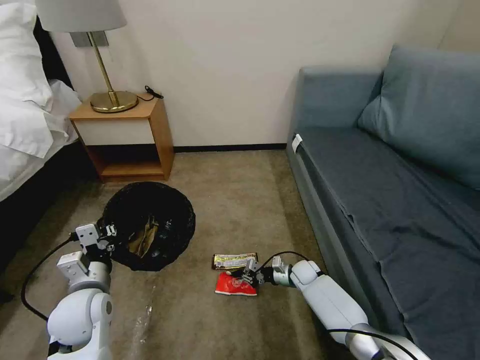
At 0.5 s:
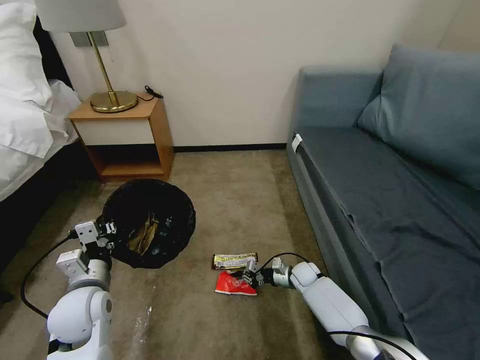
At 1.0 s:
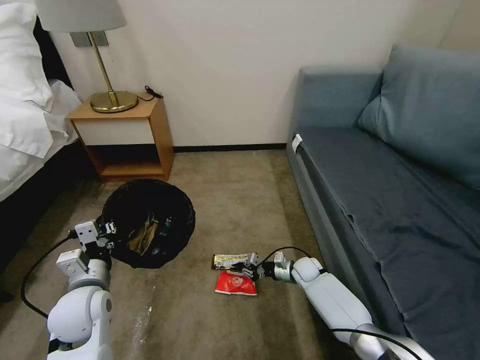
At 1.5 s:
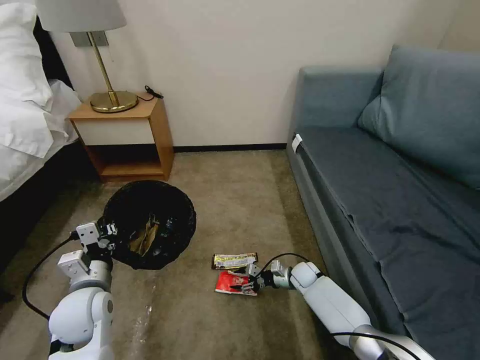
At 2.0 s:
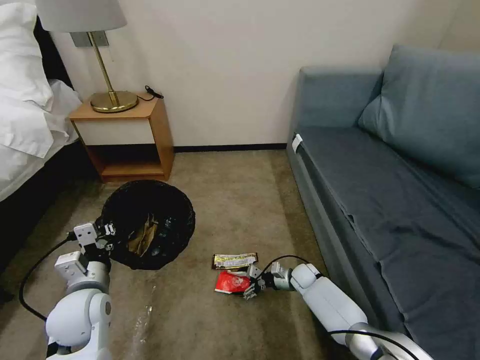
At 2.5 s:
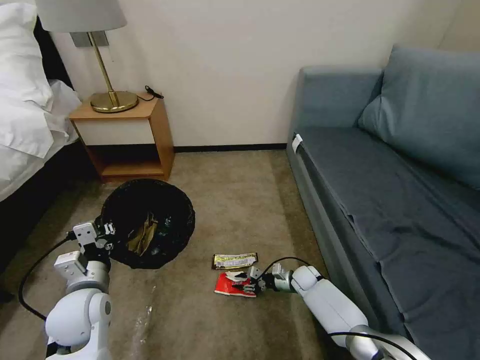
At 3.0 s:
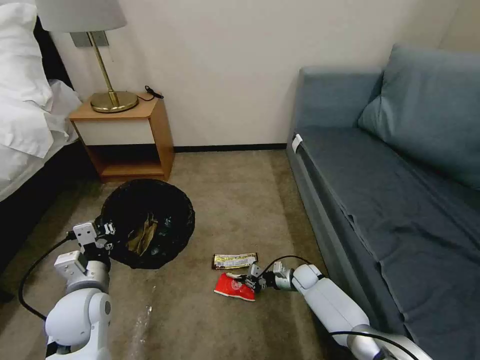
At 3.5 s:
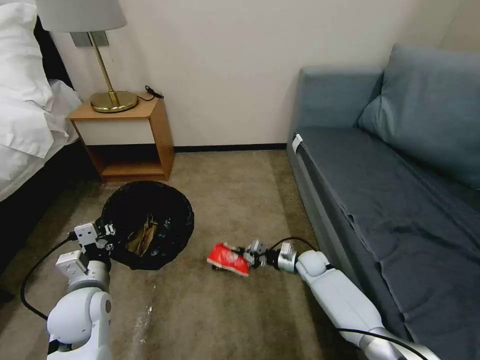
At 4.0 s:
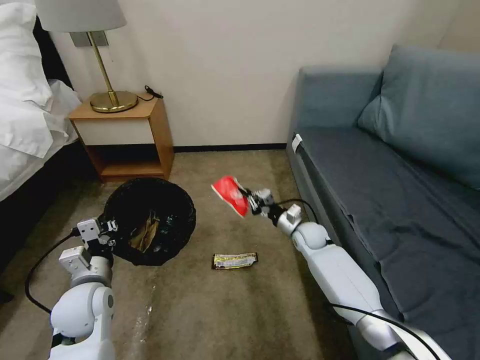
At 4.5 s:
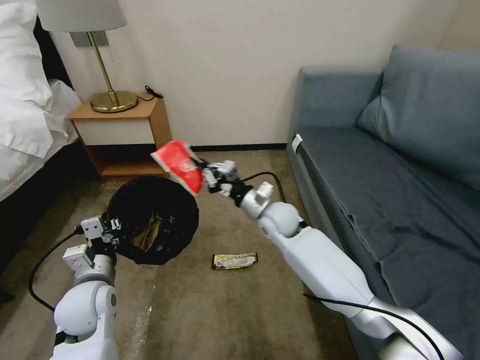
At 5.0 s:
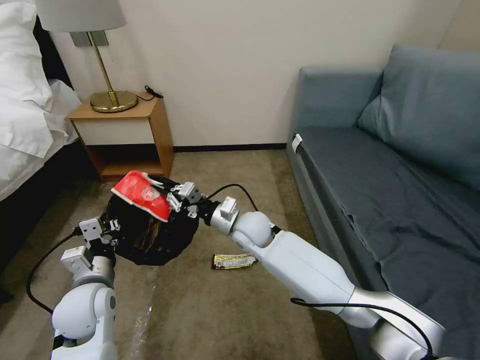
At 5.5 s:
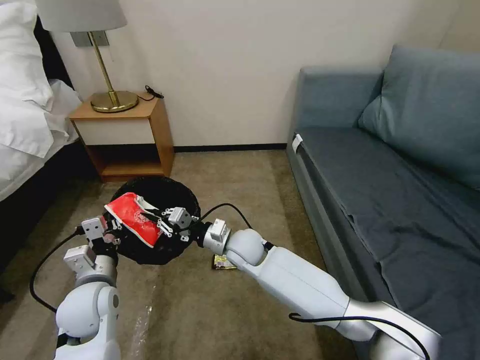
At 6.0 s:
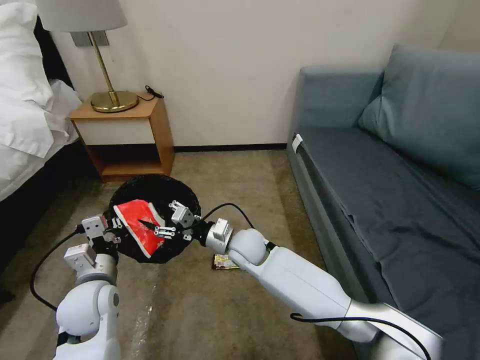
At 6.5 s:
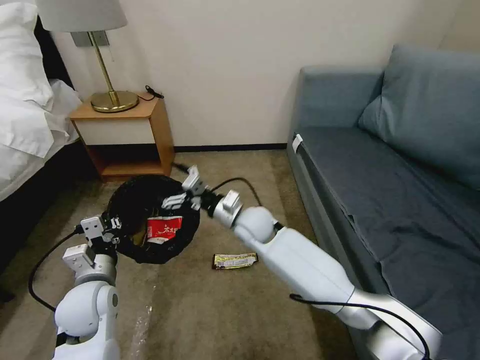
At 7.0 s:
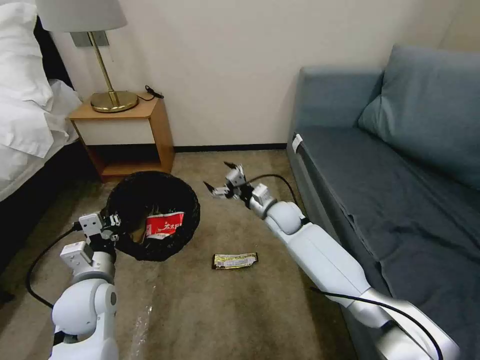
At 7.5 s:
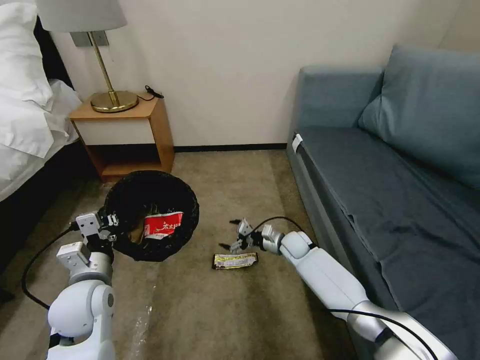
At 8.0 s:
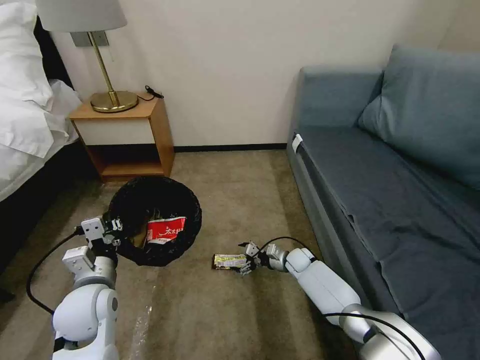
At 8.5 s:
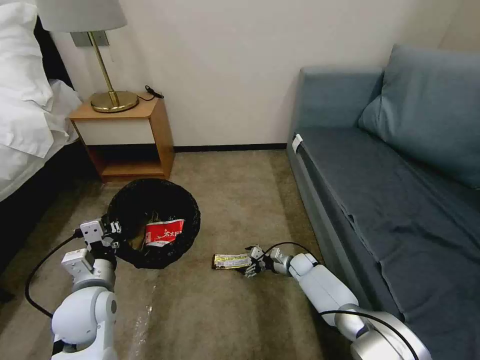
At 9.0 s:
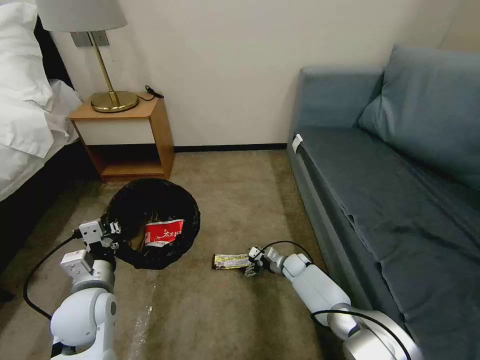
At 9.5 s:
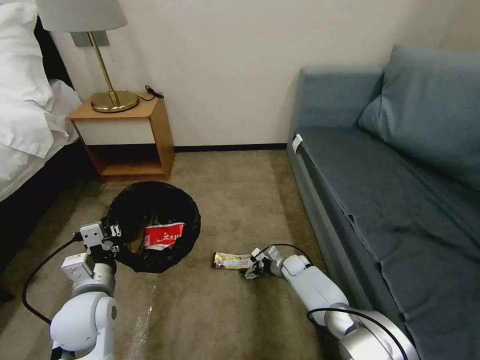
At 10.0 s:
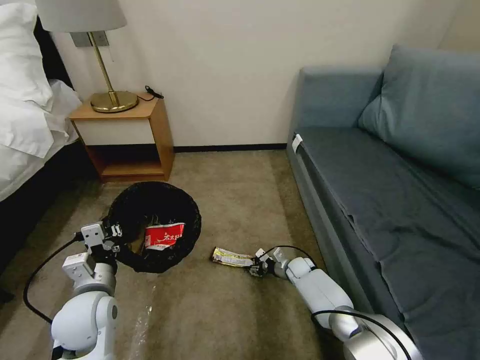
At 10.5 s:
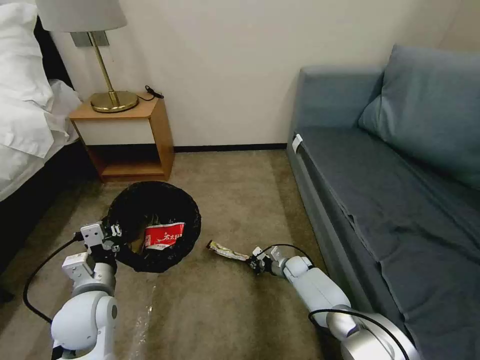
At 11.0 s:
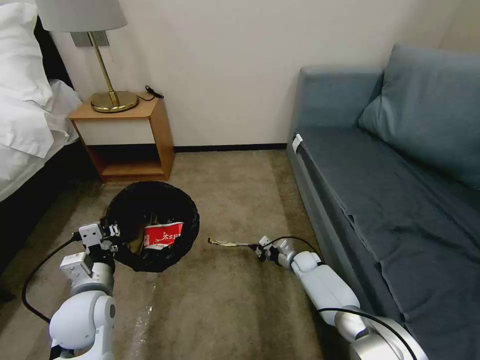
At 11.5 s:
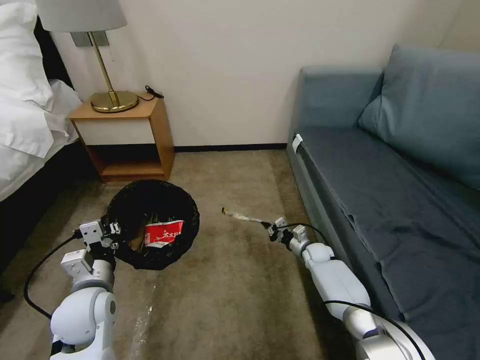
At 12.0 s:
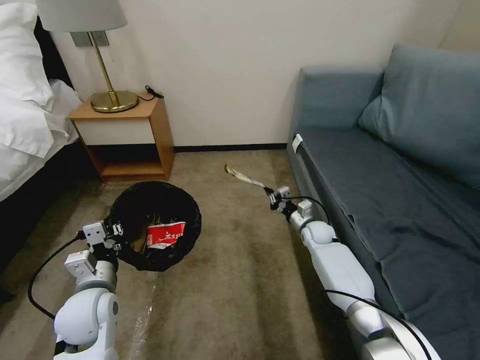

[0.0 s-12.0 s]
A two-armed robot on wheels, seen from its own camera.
Task of the whole recording: Pick up the trash bin, then pick up the garbage on the floor and place it into the trash bin.
0.0 to 2.0 s: The right gripper opens up.
2.0 to 4.0 s: The right gripper moves upward, some 15 cm, and closes.
4.0 to 6.0 s: The right gripper shifts approximately 20 cm to the left and backward, and opens up.
6.0 to 8.0 s: The right gripper heads to the right and downward, covering some 25 cm, and opens.
8.0 to 10.0 s: The right gripper closes.
10.0 to 12.0 s: The right gripper goes approximately 15 cm upward, forward and to the right, and closes its fingers.

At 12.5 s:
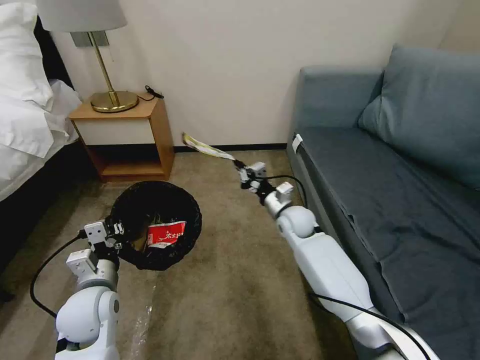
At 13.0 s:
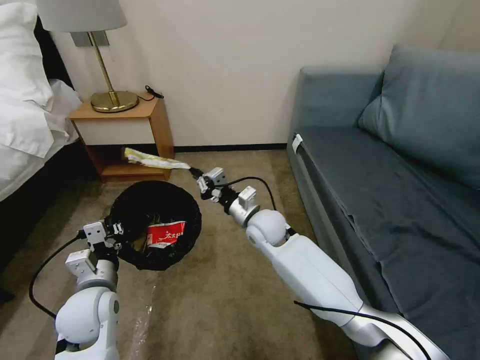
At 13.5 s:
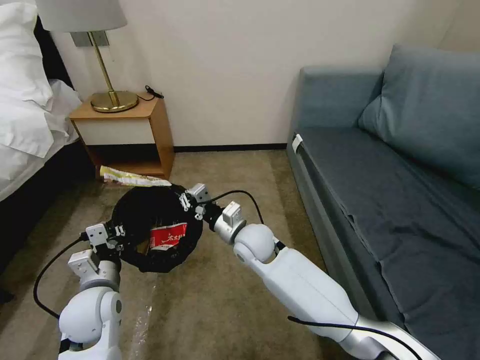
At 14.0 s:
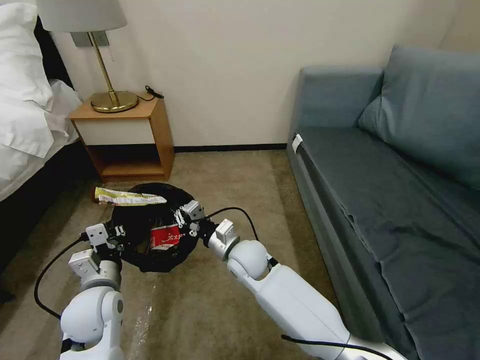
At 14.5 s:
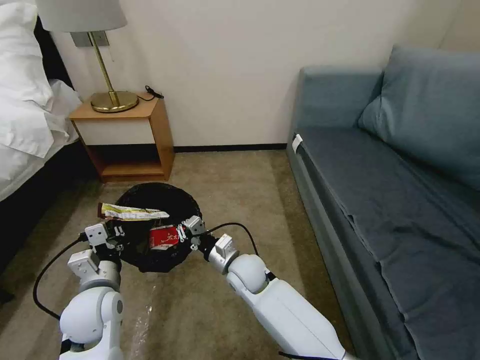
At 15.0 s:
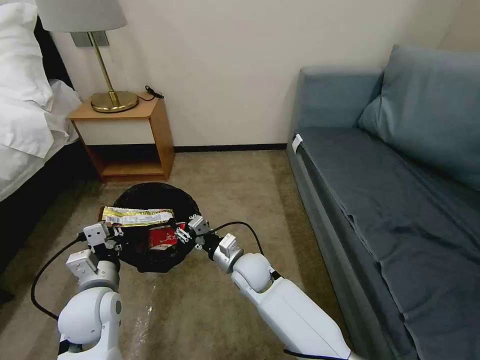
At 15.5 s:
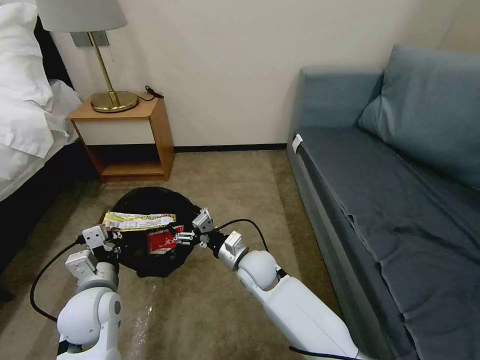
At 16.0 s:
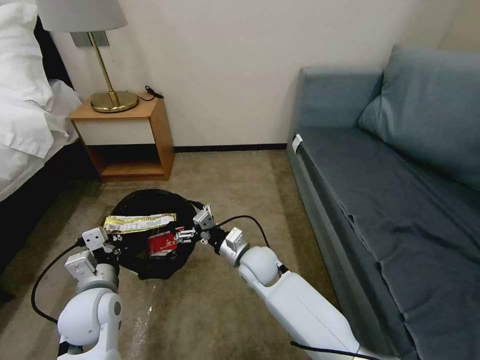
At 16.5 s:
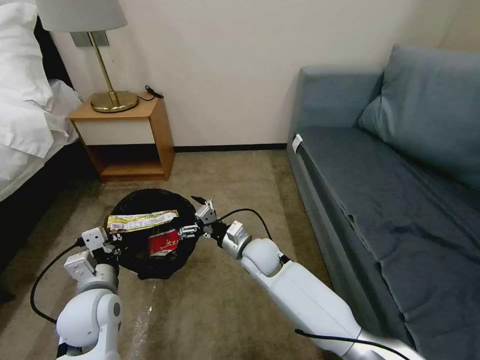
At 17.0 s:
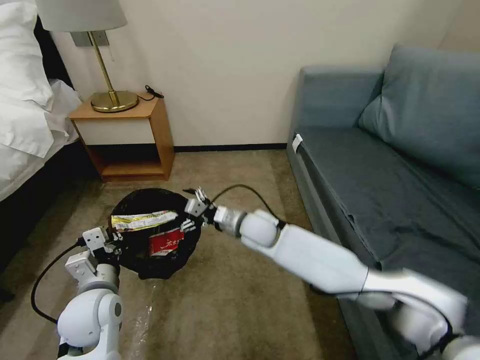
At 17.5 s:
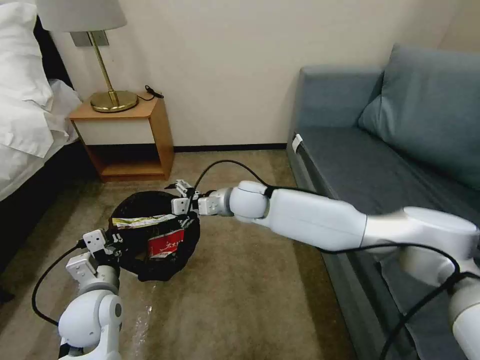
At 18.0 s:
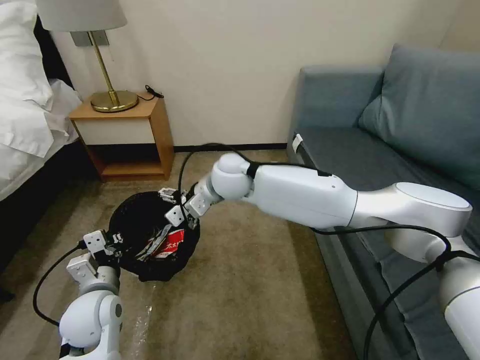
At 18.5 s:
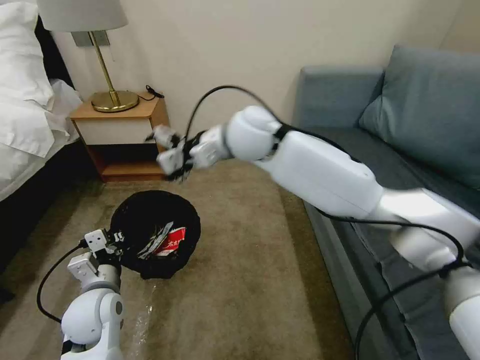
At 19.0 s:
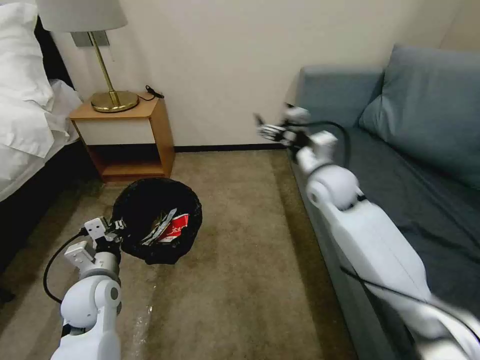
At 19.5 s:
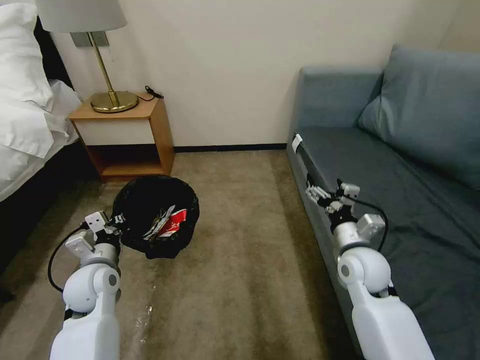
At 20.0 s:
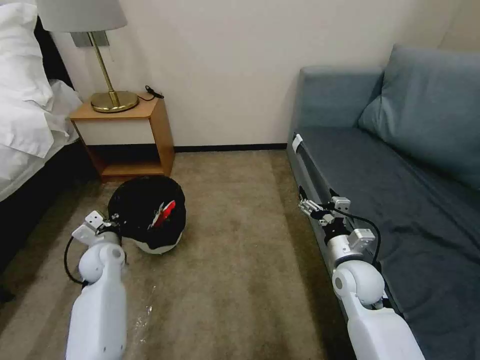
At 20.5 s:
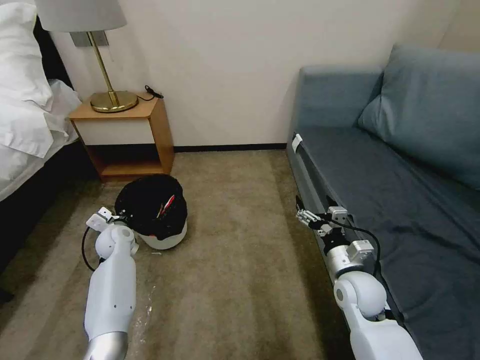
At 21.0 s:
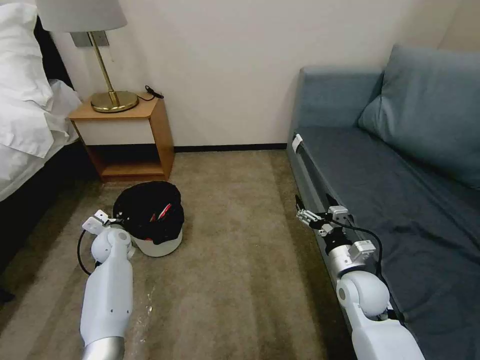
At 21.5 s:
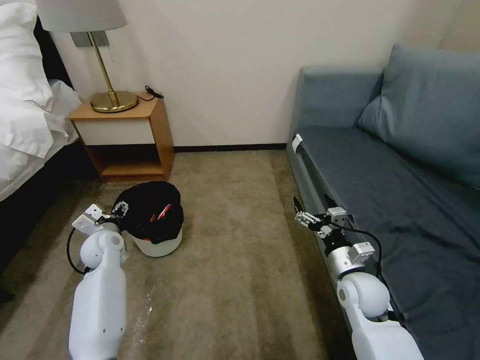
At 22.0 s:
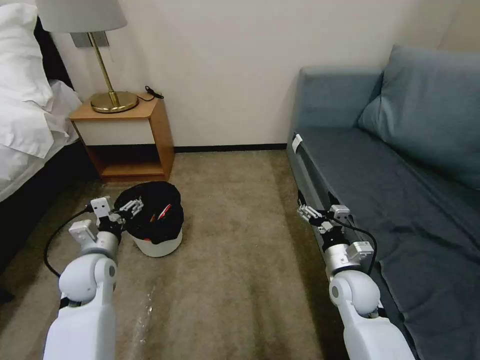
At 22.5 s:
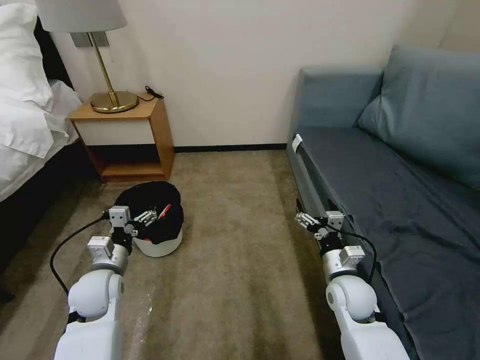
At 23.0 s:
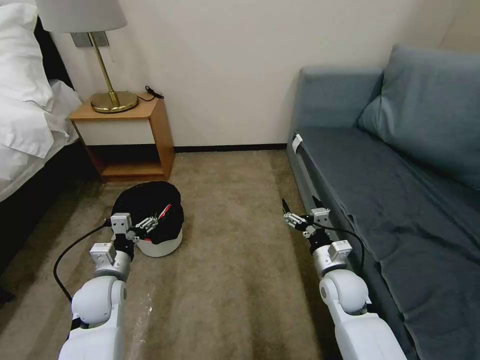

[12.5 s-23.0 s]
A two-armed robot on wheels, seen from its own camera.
Task of the whole recording: Pick up the trash bin, then pick up the garbage on the floor and place it into the trash bin.
12.5 to 14.5 s: The right gripper moves to the left and backward, some 25 cm.
14.5 to 16.5 s: The right gripper opens its fingers.
16.5 to 19.0 s: The right gripper shifts some 25 cm upward, to the right and forward.
19.0 to 21.0 s: The right gripper is displaced downward, backward and to the right by some 25 cm. Meanwhile the left gripper moves forward and downward, some 20 cm.
21.0 to 23.0 s: The left gripper goes roughly 15 cm backward, and opens.

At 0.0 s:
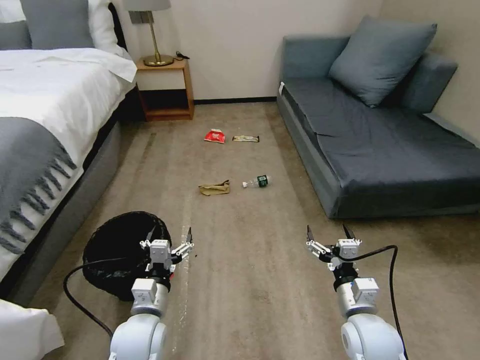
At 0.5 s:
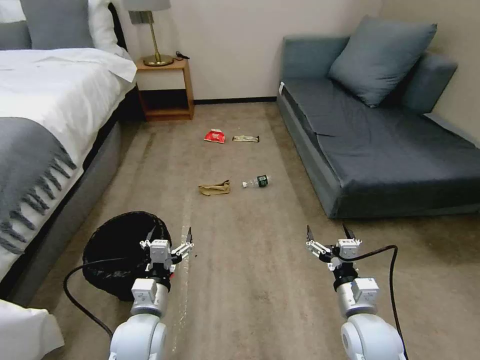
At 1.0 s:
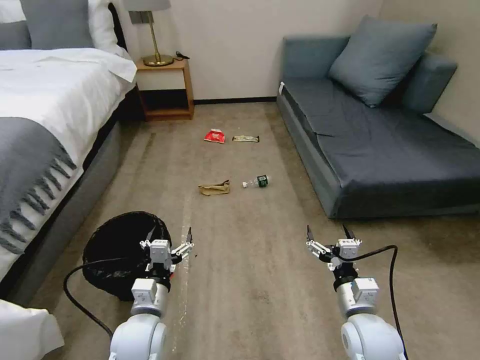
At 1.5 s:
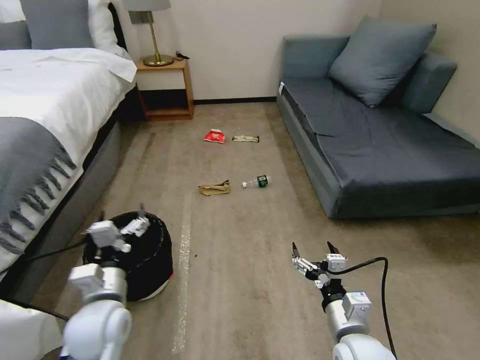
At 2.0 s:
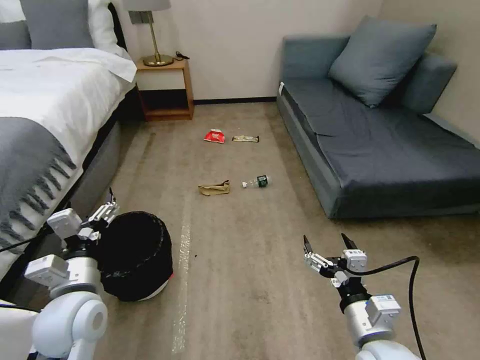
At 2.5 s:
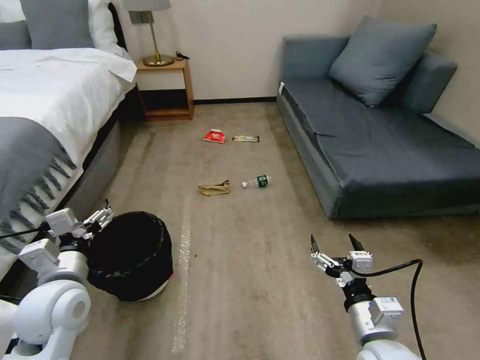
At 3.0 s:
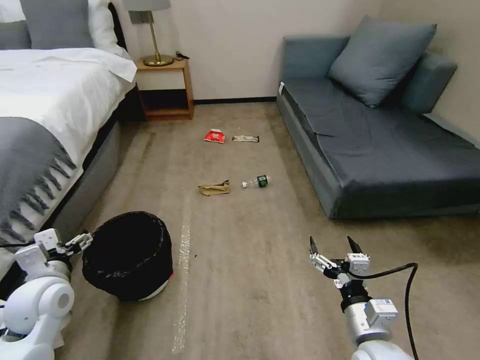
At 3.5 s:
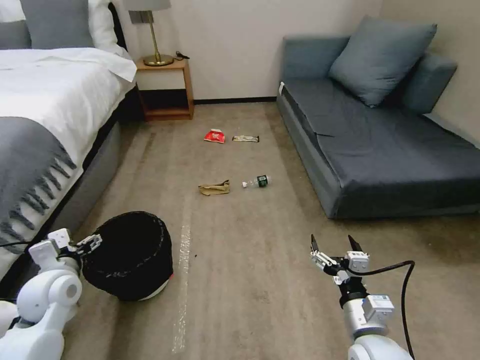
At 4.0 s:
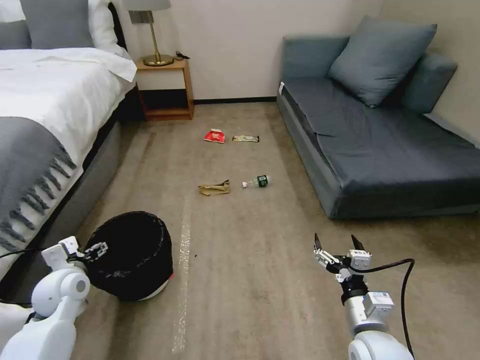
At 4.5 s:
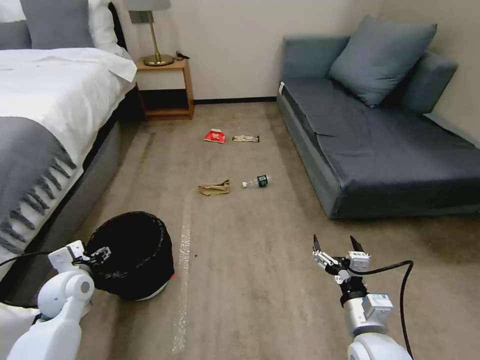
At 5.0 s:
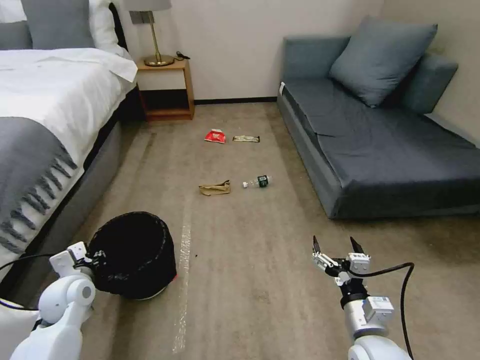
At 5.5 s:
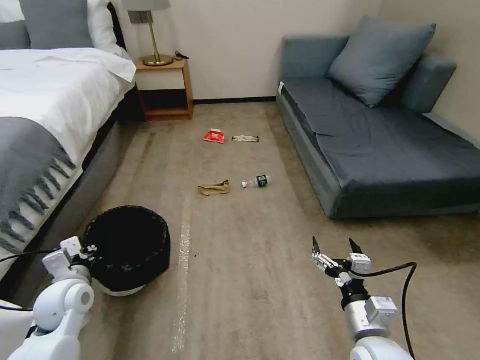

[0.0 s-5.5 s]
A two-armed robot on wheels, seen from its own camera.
Task of the whole recording: Pick up the trash bin, then pick up the garbage on the floor and place it into the trash bin.
2.0 to 3.5 s: The left gripper moves to the left and forward, roughly 10 cm.
3.5 to 5.5 s: The left gripper closes up.
